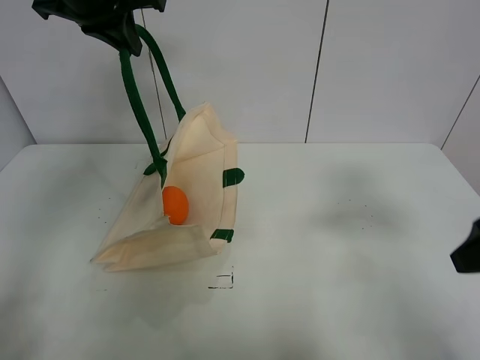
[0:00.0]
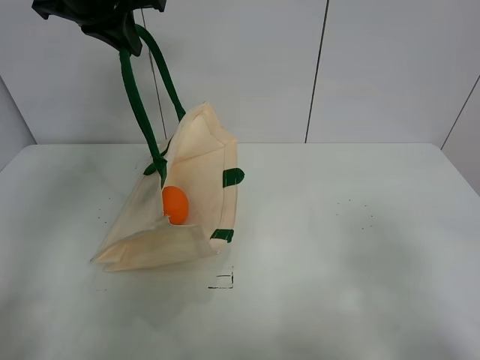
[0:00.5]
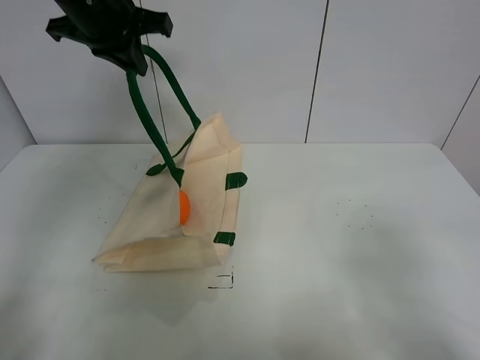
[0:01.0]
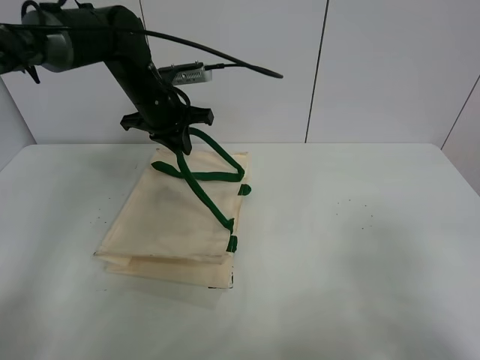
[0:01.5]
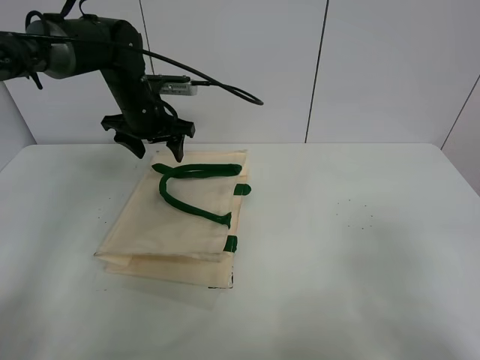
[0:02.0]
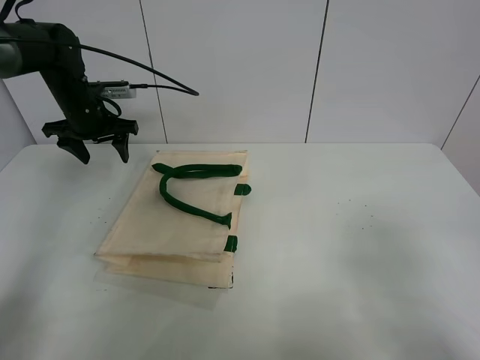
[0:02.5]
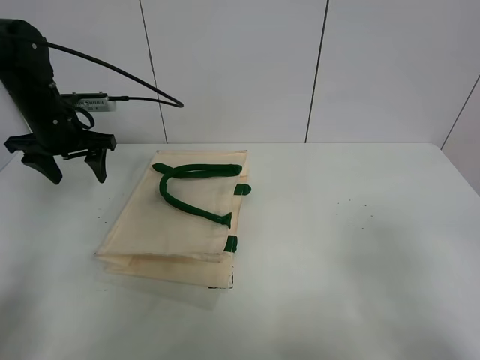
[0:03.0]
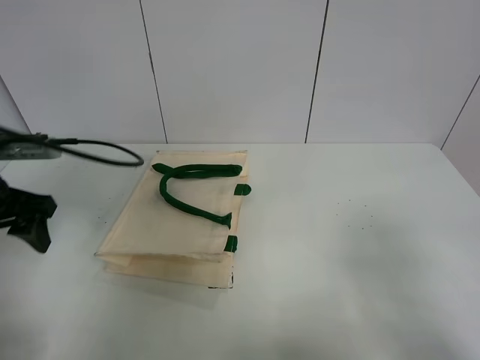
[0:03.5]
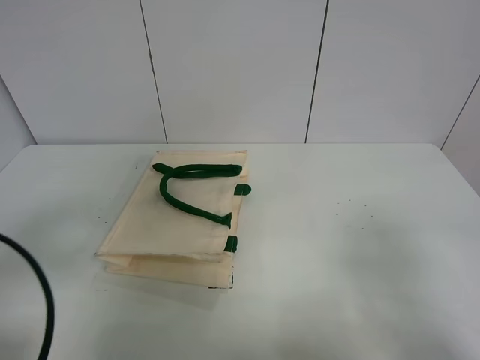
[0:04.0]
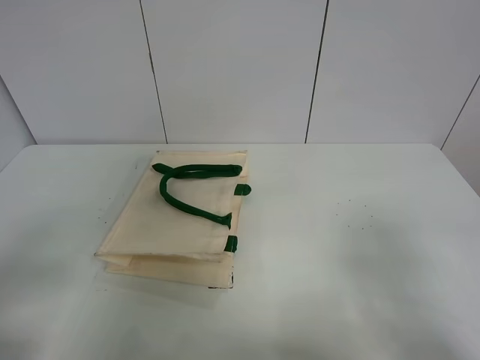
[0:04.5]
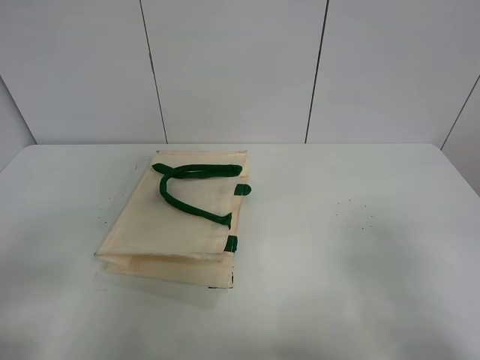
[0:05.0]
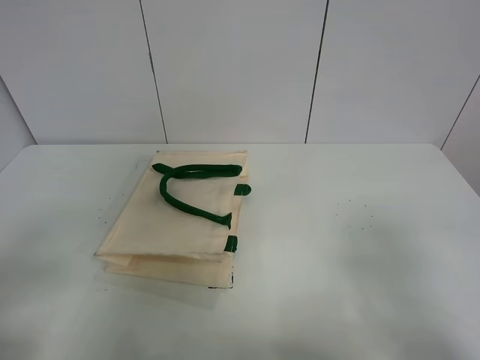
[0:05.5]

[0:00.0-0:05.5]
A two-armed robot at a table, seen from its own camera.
Task of the whole recording: open the white linen bag and put the orange in the bag.
Step, 0:00.0 to 0:02.0: Put down the handbag with left gripper.
0:00.0 to 0:02.0: The right gripper travels backward by some 10 cm. The left gripper moves downward, about 20 cm, and opens its fingers.
0:02.0 to 0:03.5: The left gripper shifts roughly 25 cm backward and to the left.
0:03.5 to 0:05.5: The left gripper heads backward, covering roughly 20 cm.
